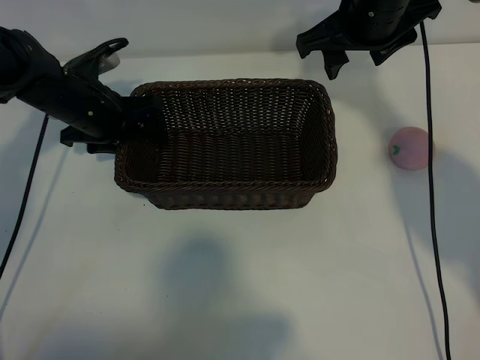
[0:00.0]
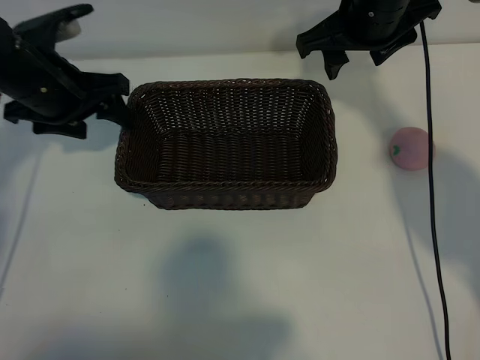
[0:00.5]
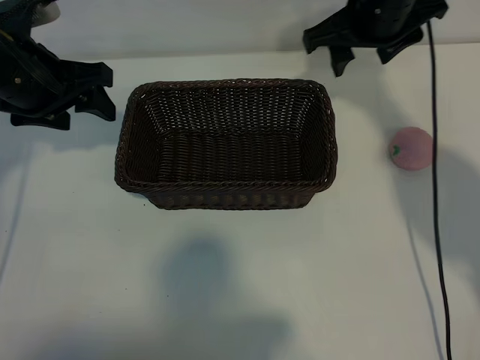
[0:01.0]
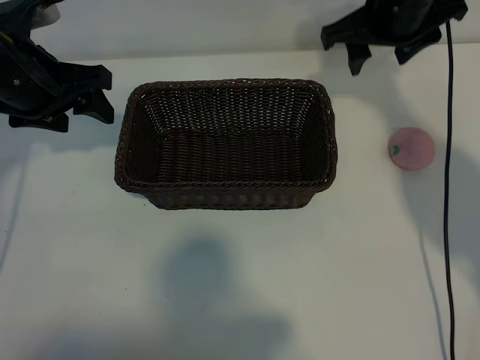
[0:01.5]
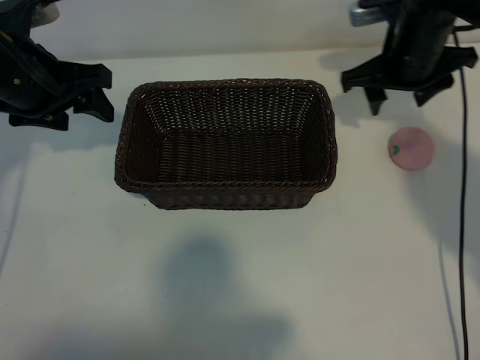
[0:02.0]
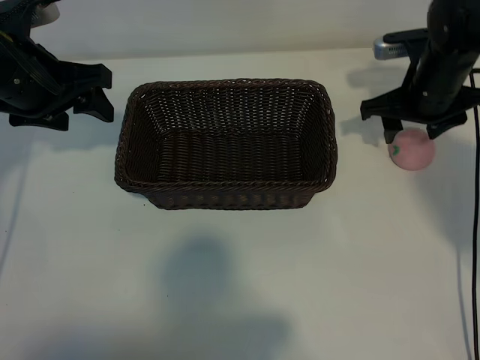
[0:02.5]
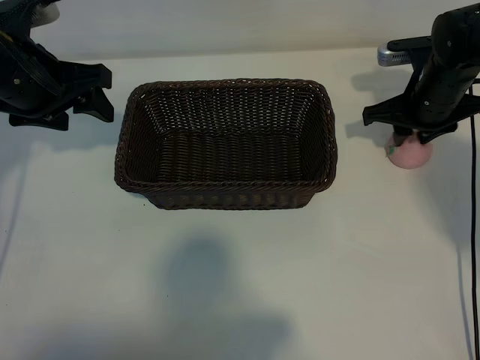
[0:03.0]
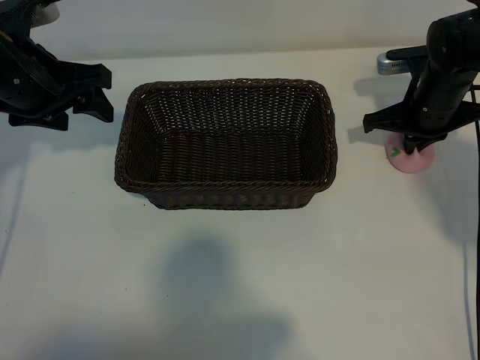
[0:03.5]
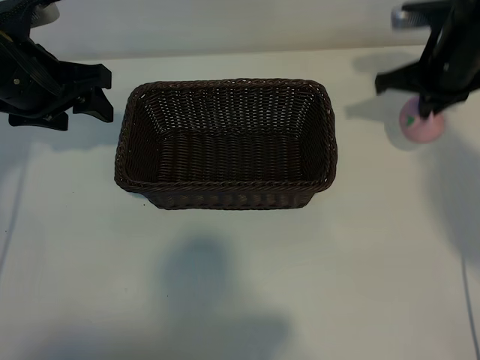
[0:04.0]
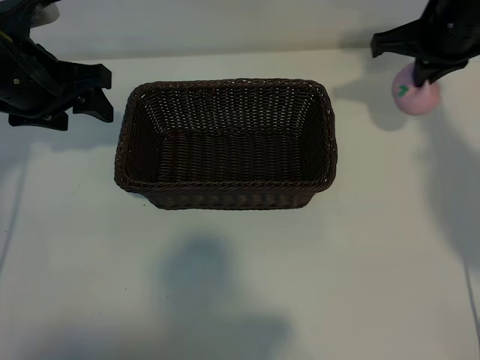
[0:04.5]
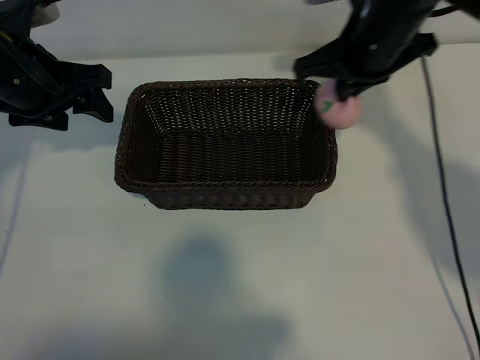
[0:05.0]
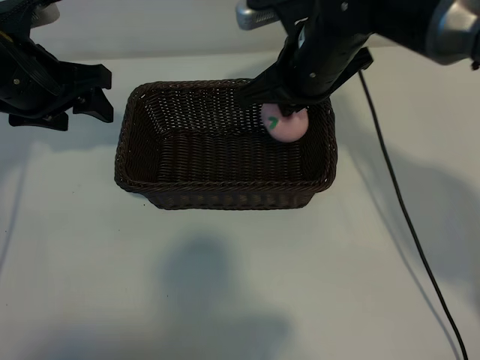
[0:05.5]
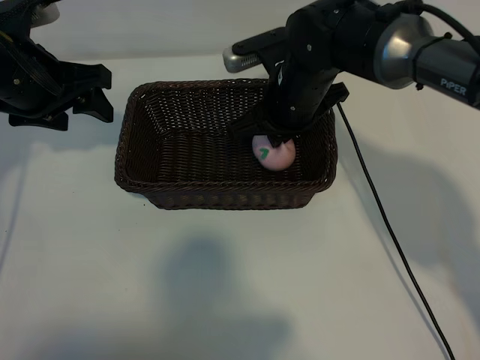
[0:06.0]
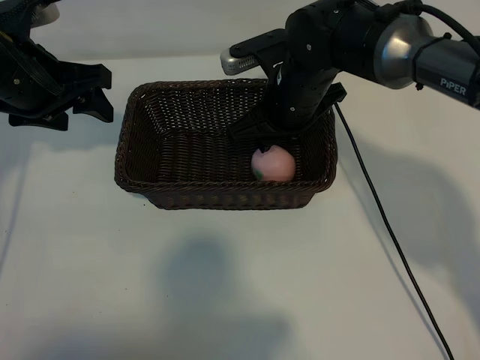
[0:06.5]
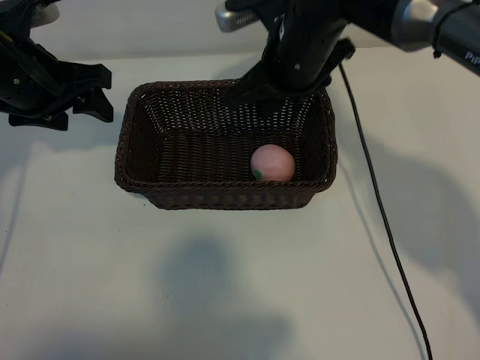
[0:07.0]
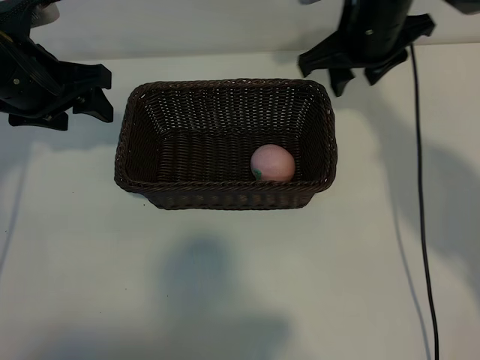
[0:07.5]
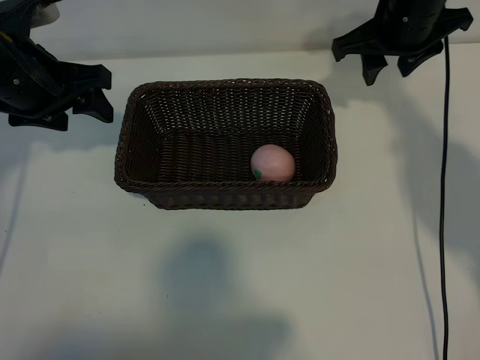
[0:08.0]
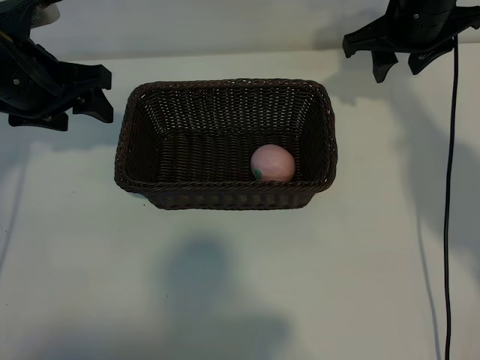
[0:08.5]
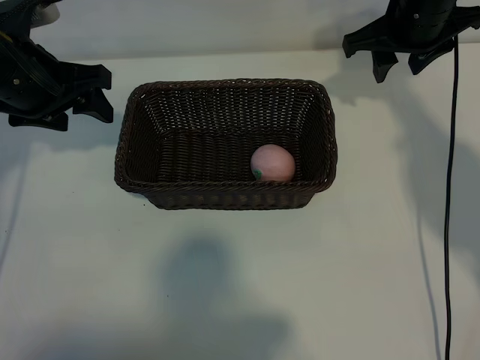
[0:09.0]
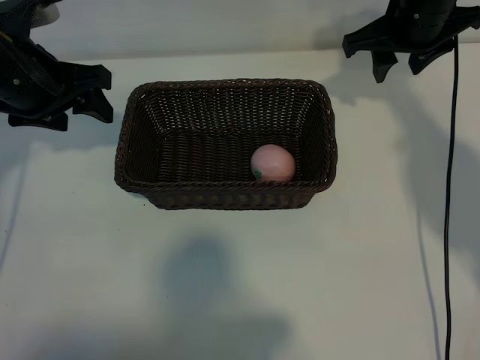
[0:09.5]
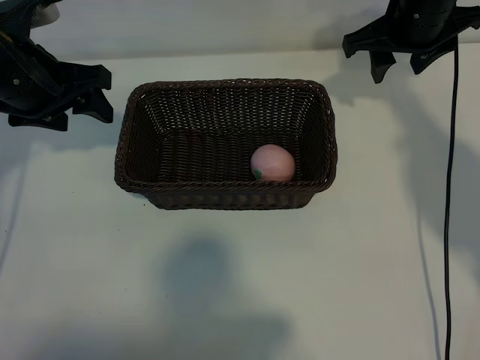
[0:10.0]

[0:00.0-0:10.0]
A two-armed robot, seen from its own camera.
Task of the whole recording: pick up the peach and put it into the basket.
Step, 0:00.5 to 0:03.5: Grasp the peach with right gripper.
Step, 0:04.0 to 0:06.5: Place the peach in the basket with right gripper.
